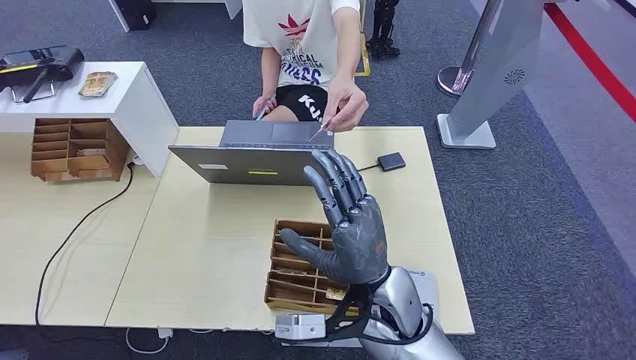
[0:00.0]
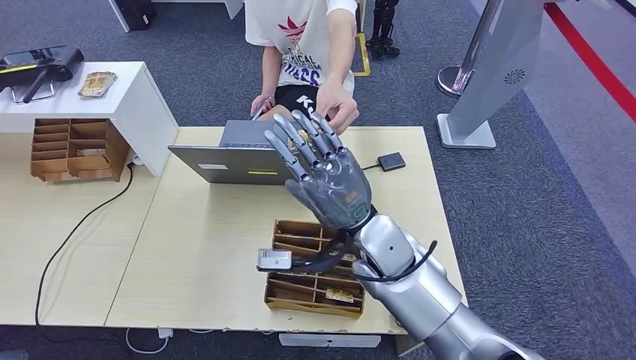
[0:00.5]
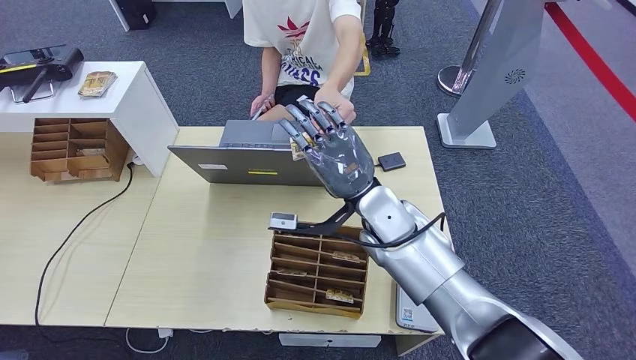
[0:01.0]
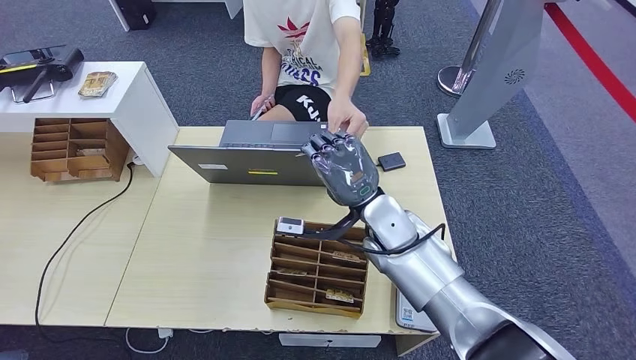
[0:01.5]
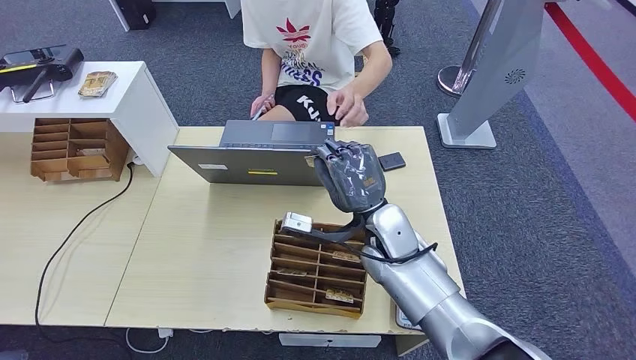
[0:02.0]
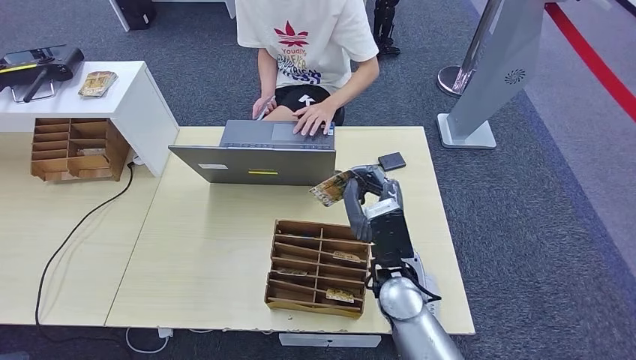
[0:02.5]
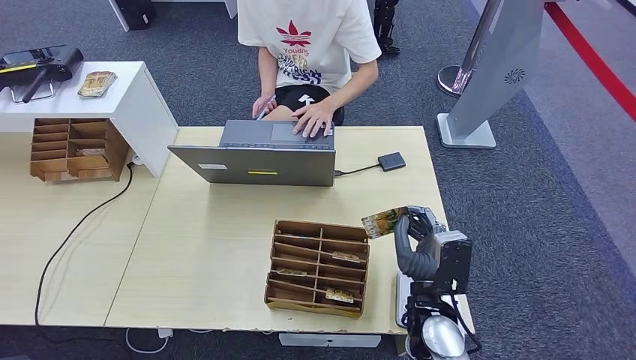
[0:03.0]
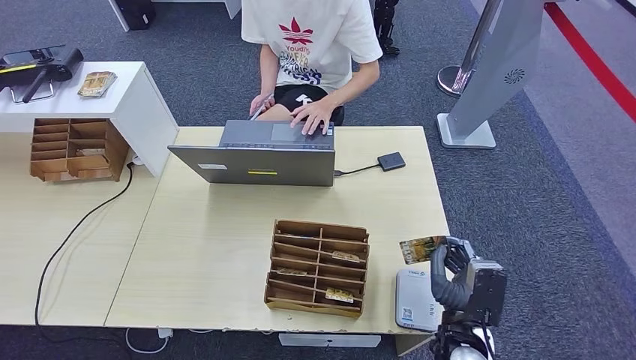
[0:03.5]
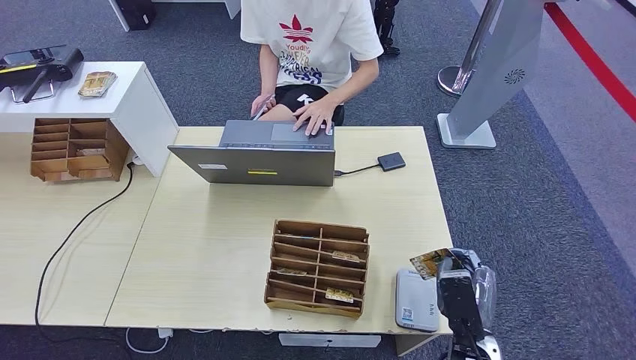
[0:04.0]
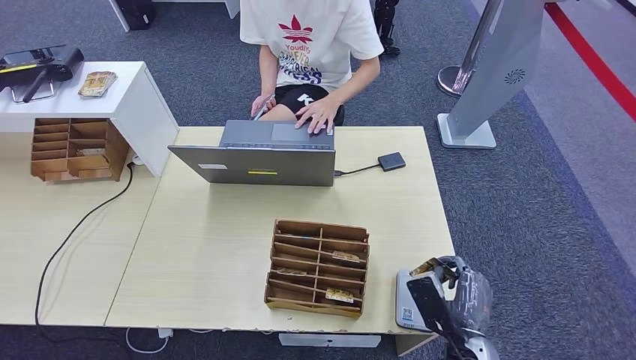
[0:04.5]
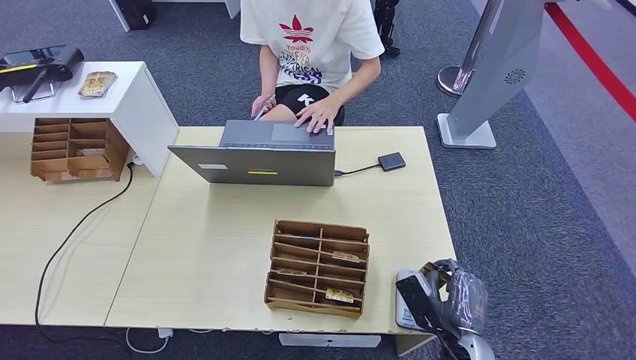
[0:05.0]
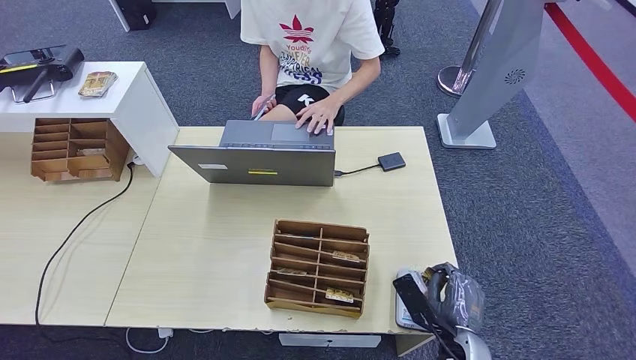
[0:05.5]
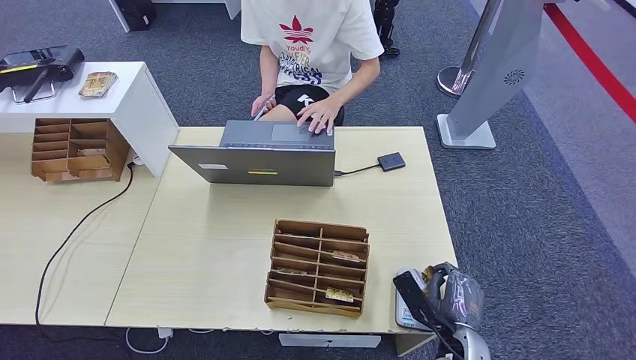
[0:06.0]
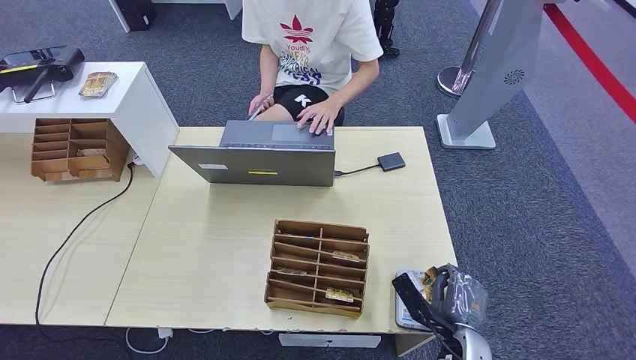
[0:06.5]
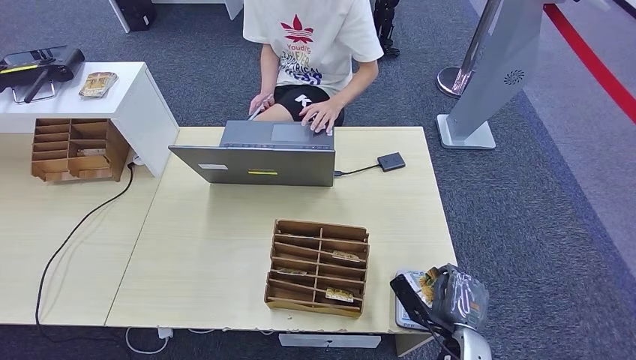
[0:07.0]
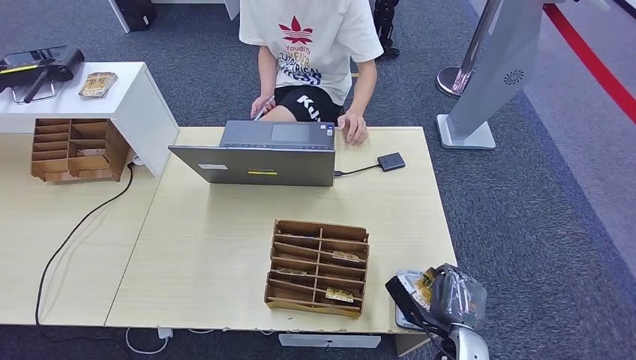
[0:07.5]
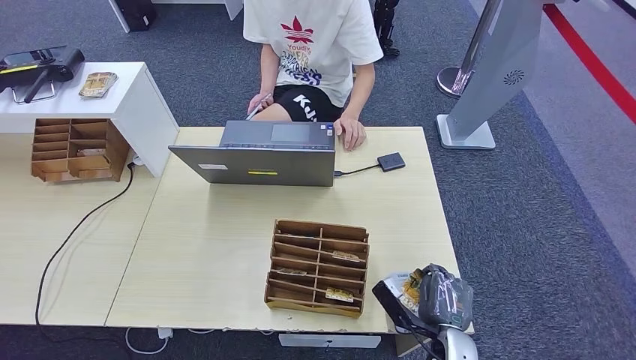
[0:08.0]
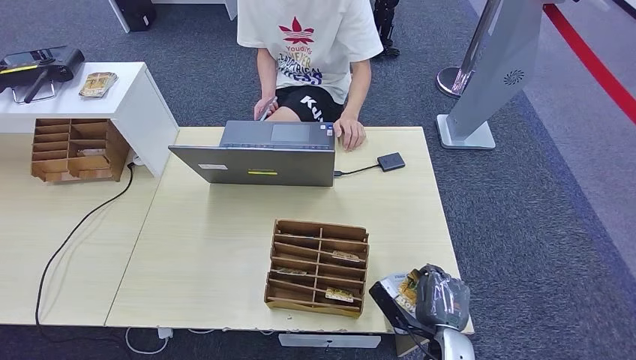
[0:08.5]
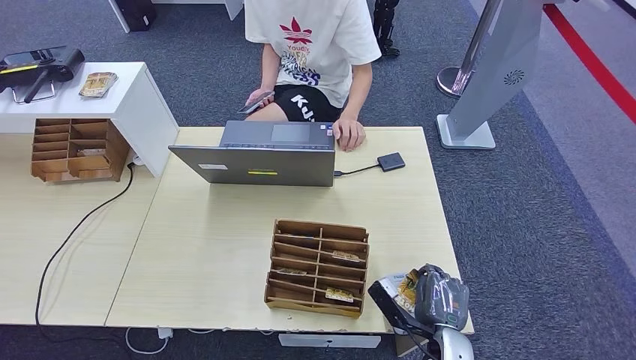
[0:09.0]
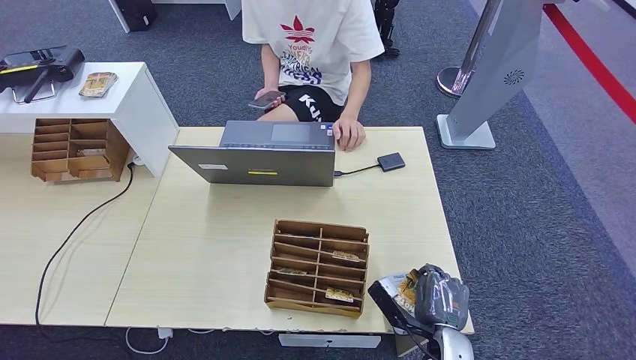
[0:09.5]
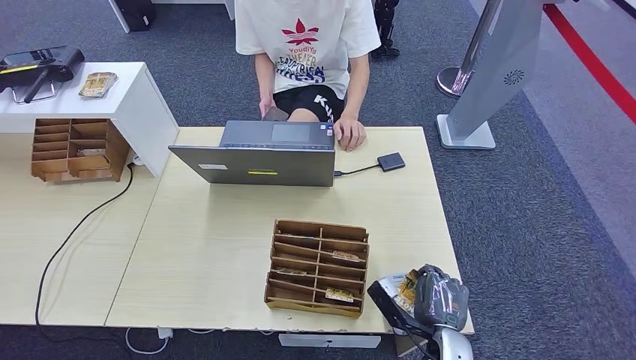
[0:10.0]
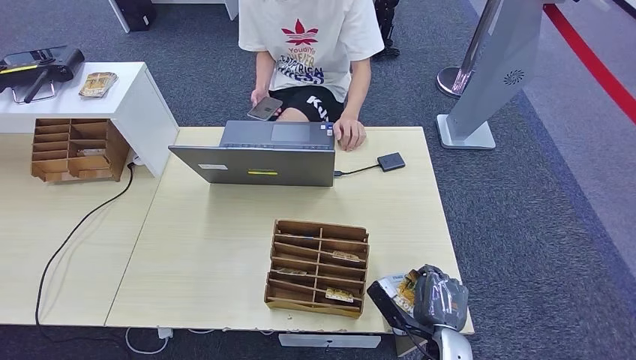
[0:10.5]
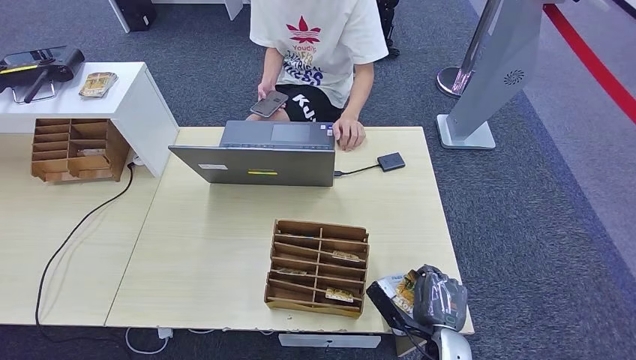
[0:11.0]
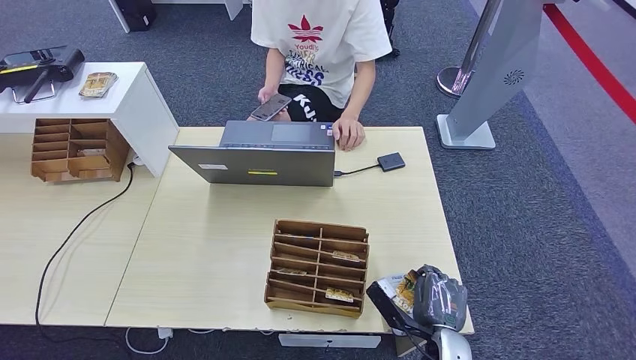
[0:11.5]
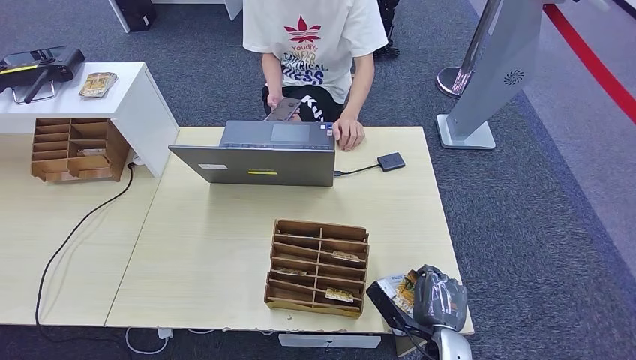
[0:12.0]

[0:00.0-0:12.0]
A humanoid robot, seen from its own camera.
Step, 0:00.0 to 0:02.0: Take the ID card from the person's hand.
0:02.0 to 0:04.0: The right hand is displaced backward, to the right and downward by about 25 cm.
0:04.0 to 0:06.0: The right hand heads downward, covering about 5 cm.
0:06.0 to 0:08.0: The hands make only small movements.
0:08.0 to 0:12.0: Both hands stay about where they are.

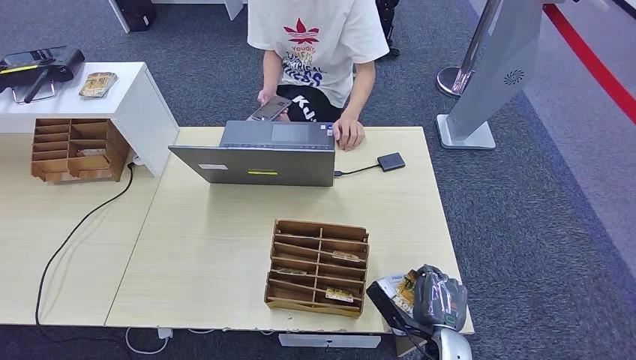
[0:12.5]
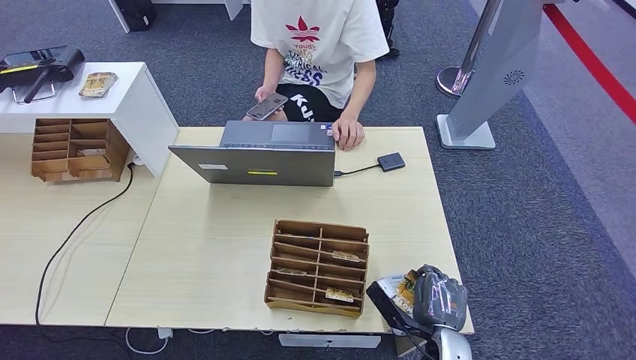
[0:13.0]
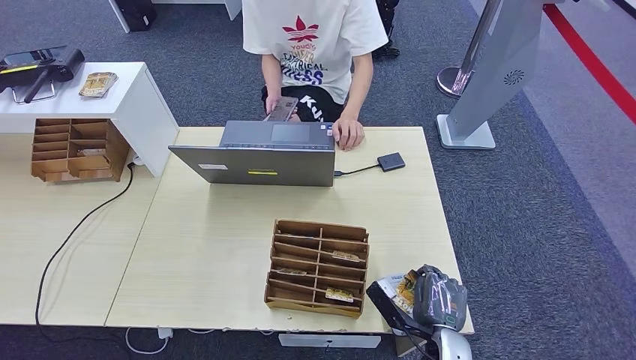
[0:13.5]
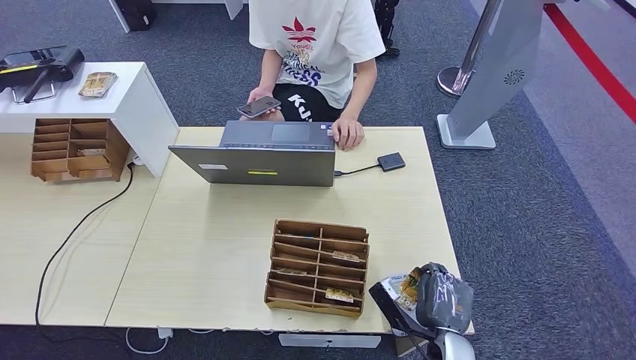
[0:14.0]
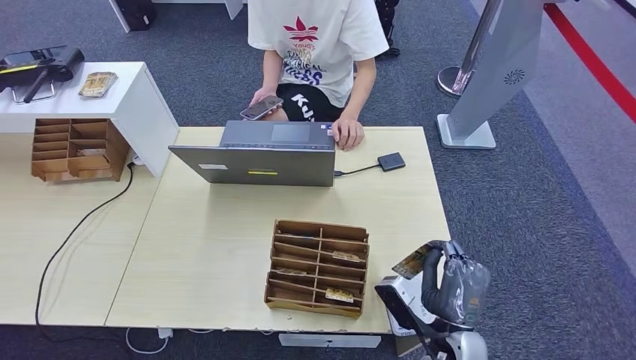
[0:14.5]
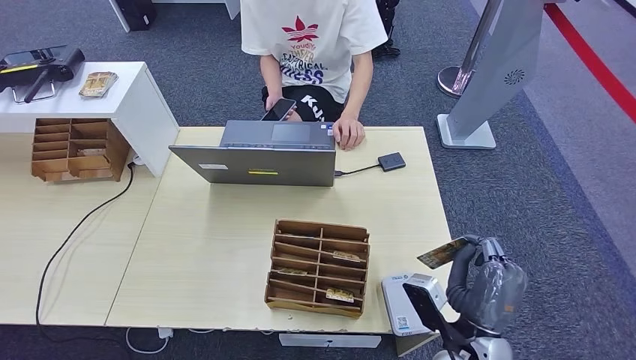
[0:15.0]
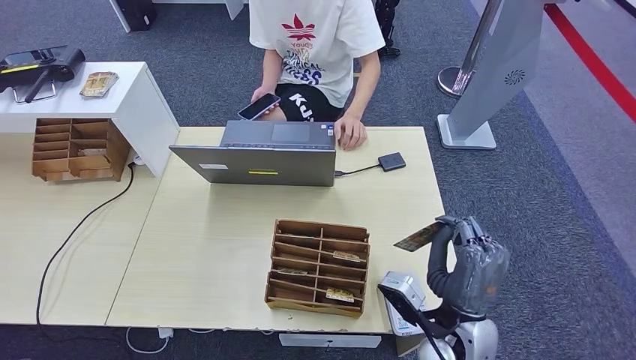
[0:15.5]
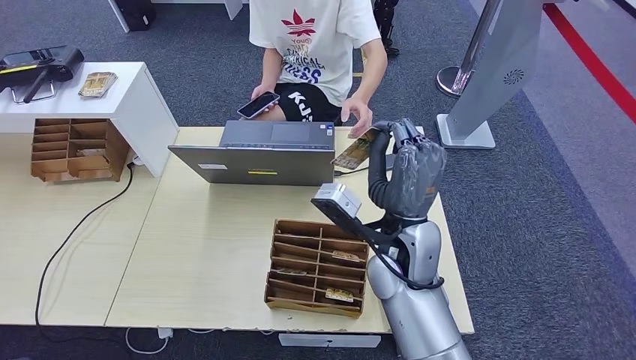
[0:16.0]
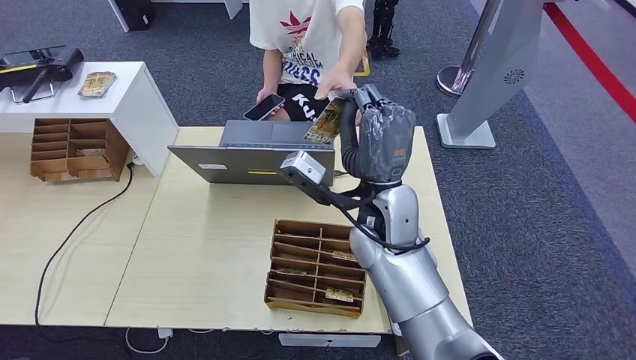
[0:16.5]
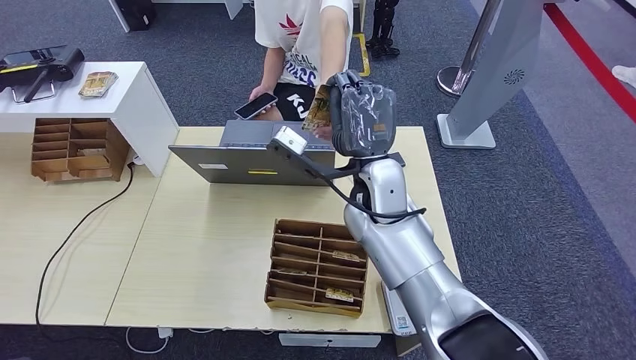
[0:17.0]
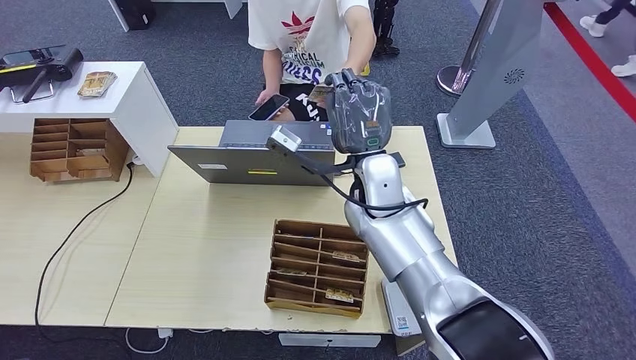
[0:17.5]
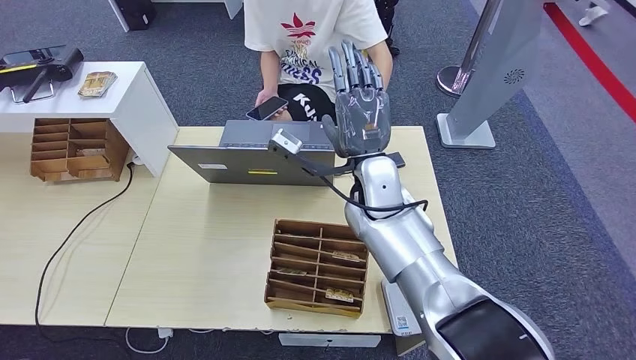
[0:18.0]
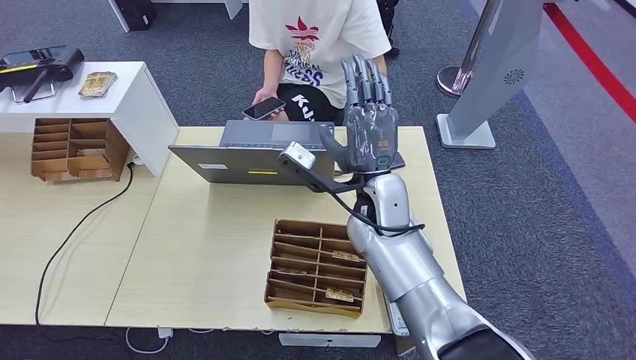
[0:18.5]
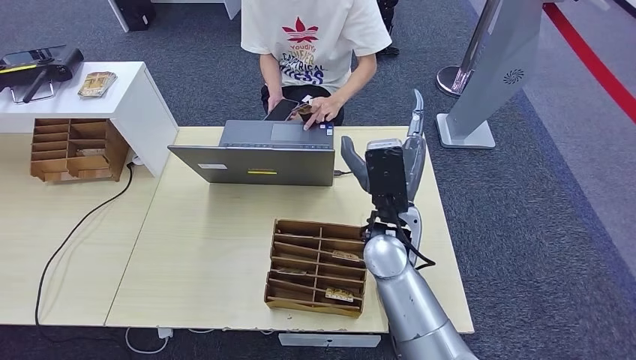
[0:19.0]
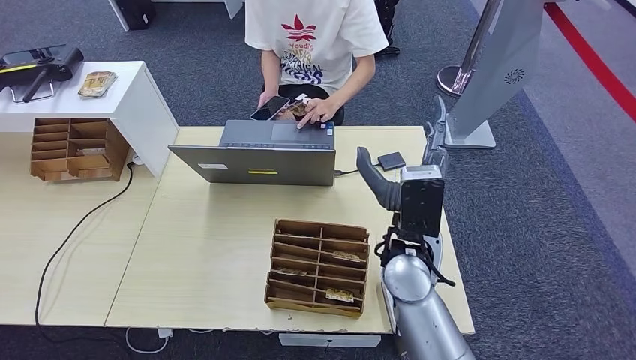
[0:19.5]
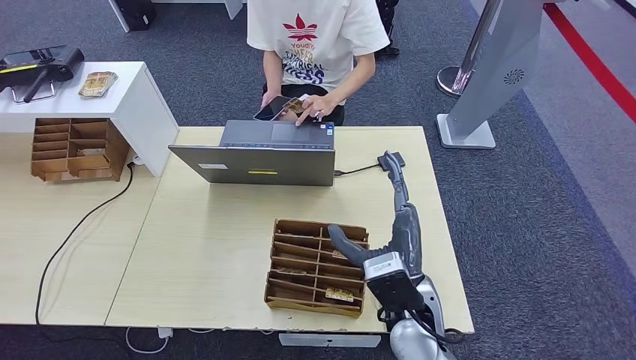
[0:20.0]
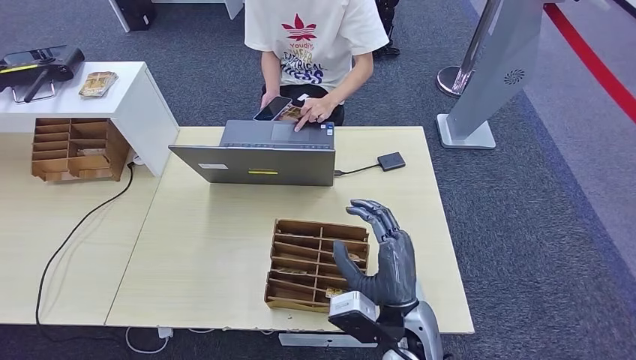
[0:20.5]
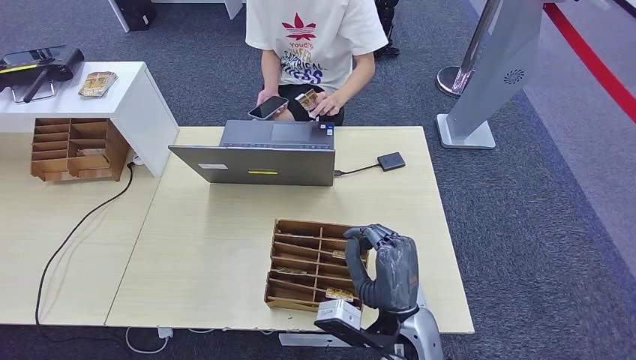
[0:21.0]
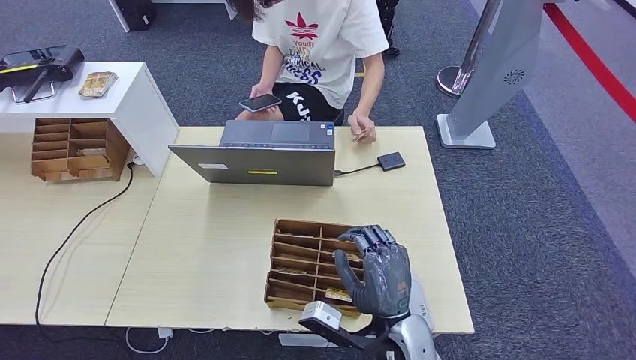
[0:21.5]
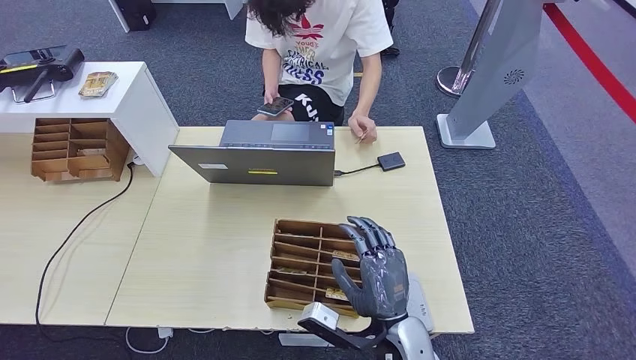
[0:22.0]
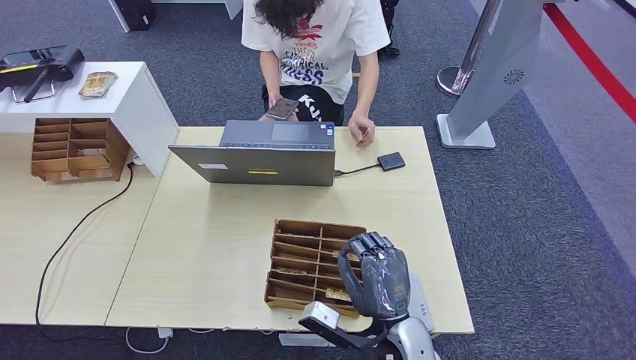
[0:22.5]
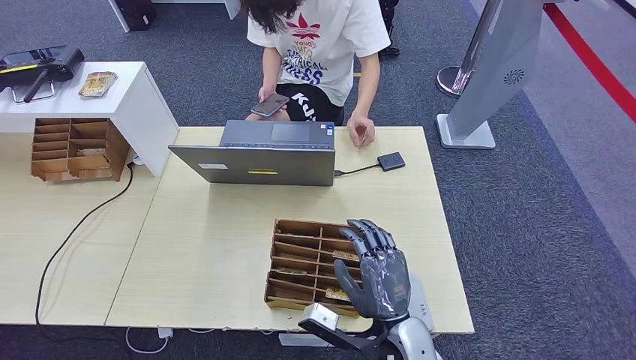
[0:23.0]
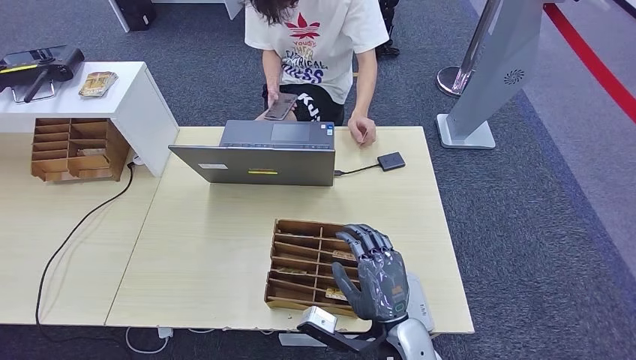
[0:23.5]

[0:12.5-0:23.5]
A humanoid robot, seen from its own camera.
Step, 0:13.0 to 0:17.5: Hand the ID card to the person.
0:12.5 to 0:14.5: The right hand shifts roughly 5 cm upward.
0:14.5 to 0:16.0: The right hand moves upward, forward and to the left, approximately 20 cm.
0:16.0 to 0:18.0: The right hand moves forward, roughly 10 cm.
0:18.0 to 0:20.0: The right hand heads backward and downward, covering roughly 20 cm.
0:20.0 to 0:21.5: The right hand moves downward, roughly 5 cm.
0:21.5 to 0:23.5: The hands stay close to where they were, moving slightly.
